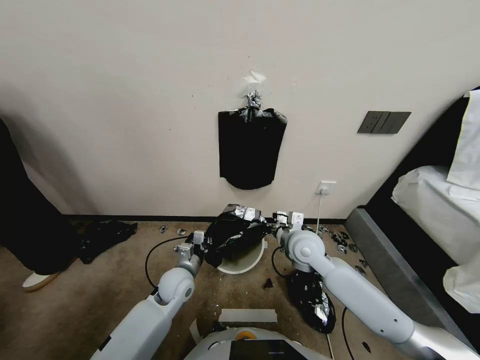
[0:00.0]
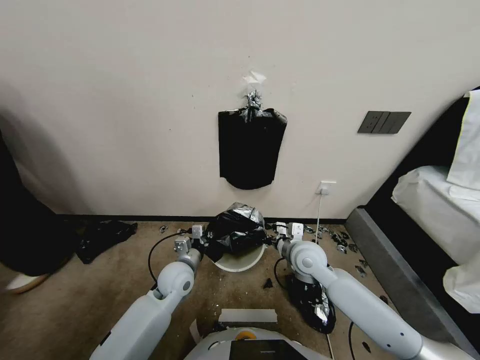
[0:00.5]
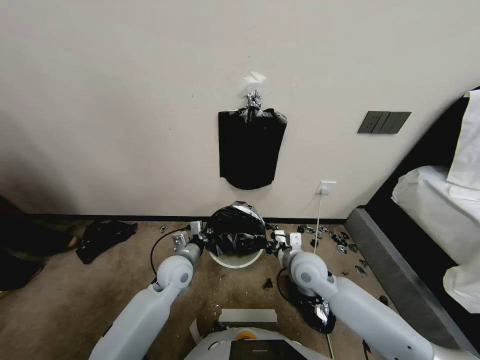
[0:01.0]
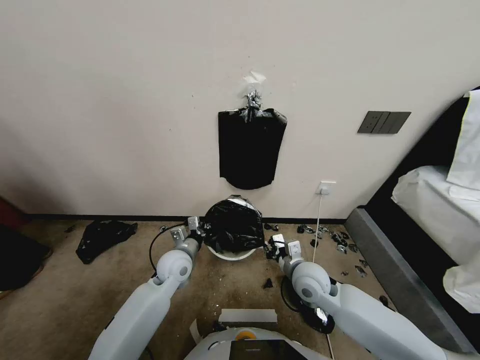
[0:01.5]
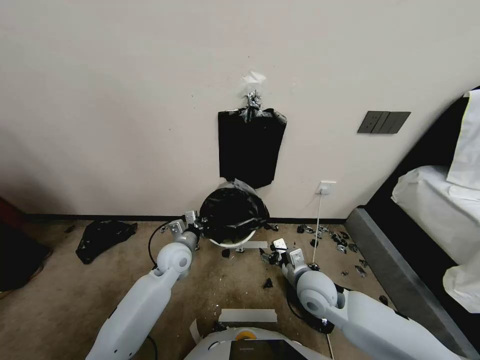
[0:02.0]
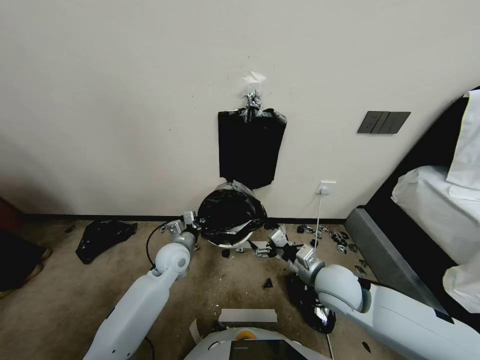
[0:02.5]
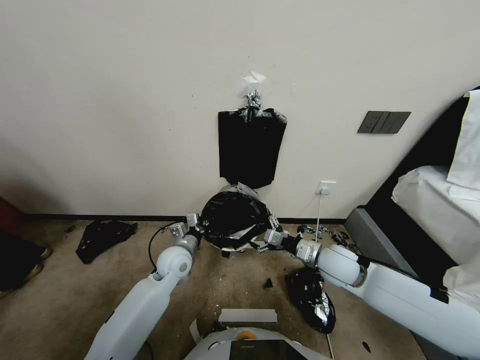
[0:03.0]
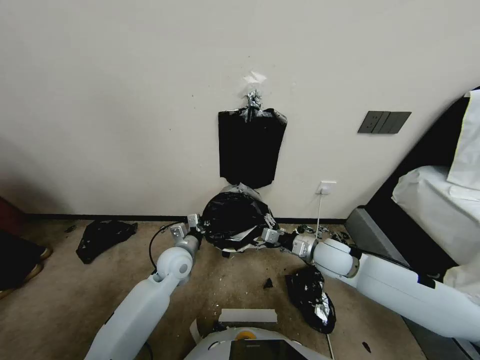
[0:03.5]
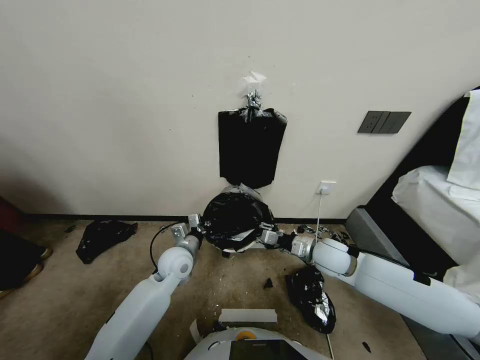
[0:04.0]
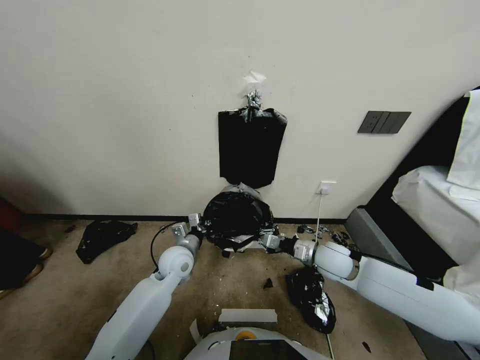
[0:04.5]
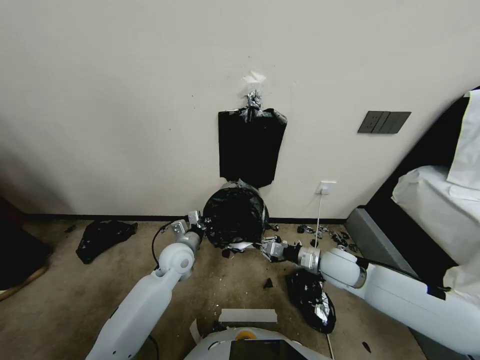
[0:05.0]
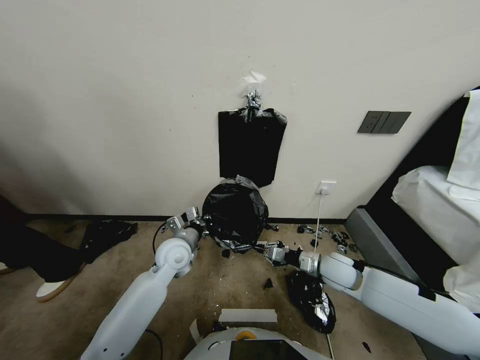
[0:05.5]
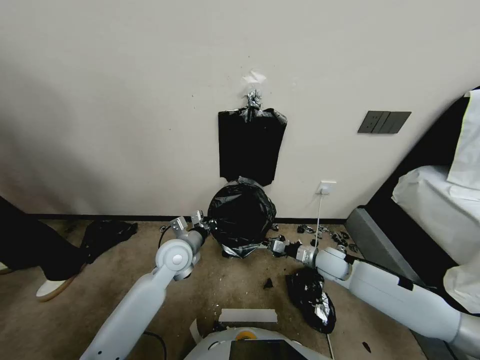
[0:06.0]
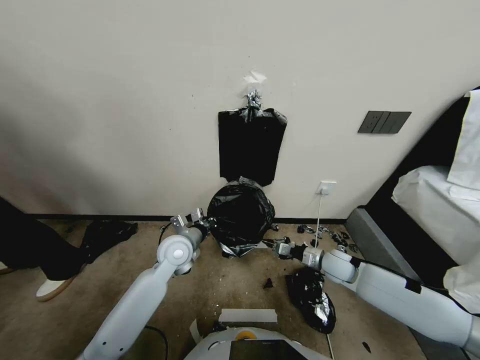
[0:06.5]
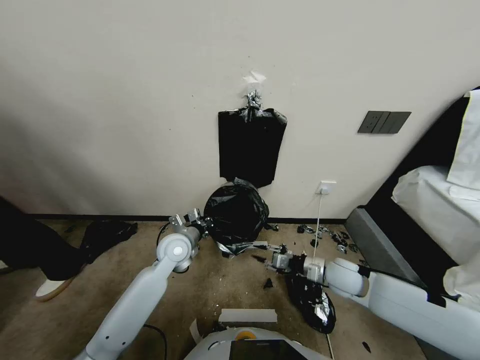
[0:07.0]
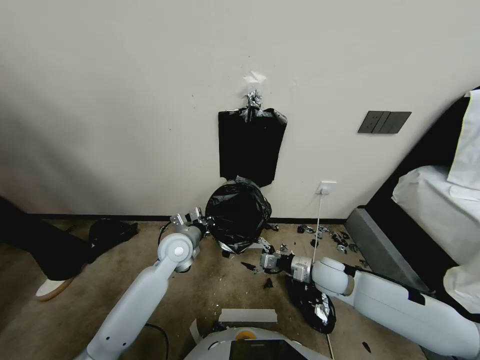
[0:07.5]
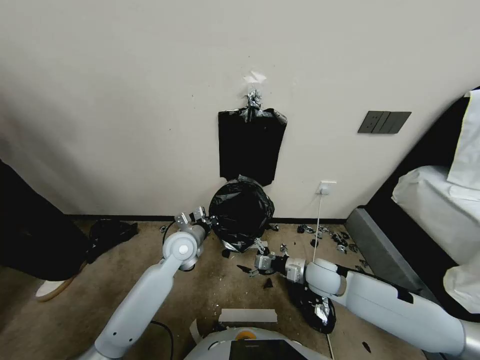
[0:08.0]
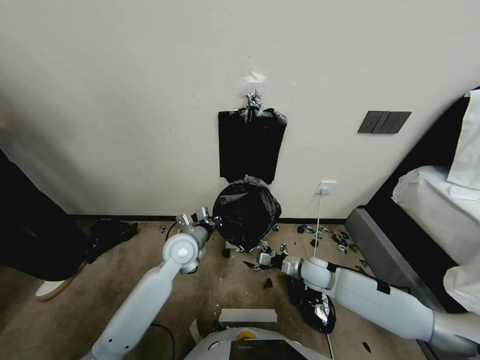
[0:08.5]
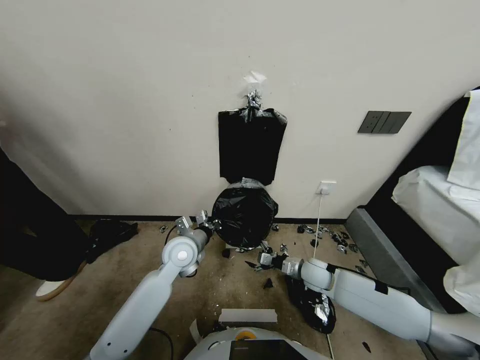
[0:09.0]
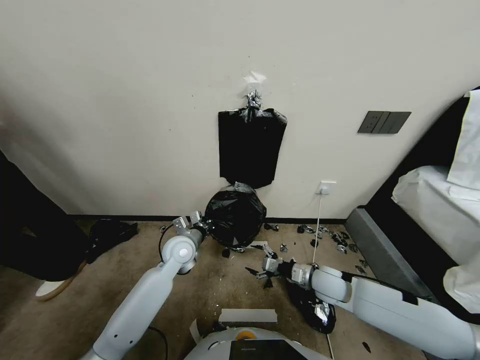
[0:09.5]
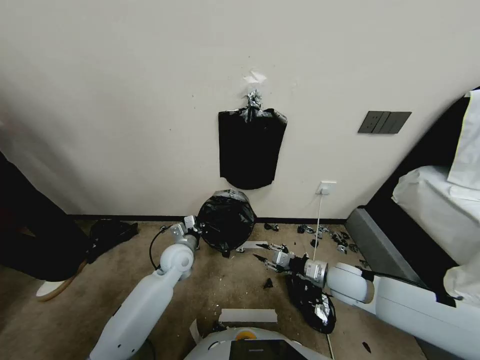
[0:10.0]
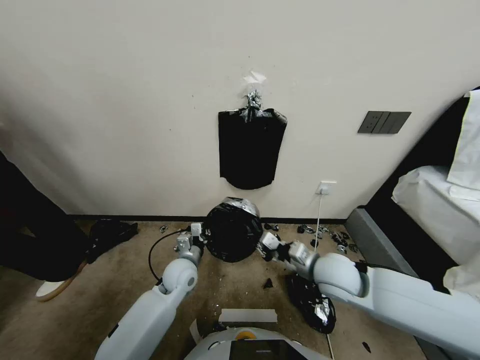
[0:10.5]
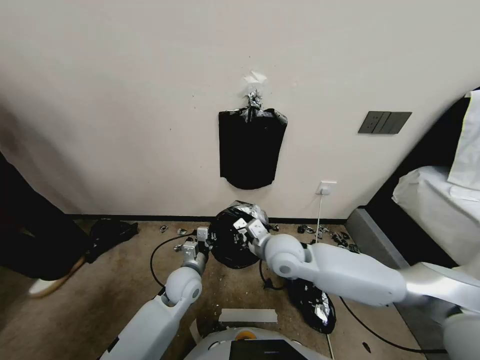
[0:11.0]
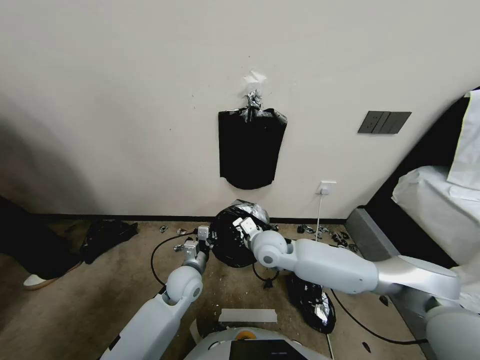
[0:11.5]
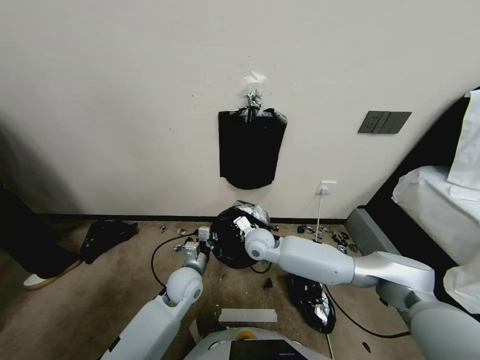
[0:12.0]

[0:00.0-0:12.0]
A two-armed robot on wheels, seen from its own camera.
Task of the whole recording: Place a trash bag onto the trash bin.
0:00.0 to 0:02.0: The left gripper travels forward by some 5 cm; the right gripper is displaced backward by approximately 10 cm, and opens its fingers.
0:02.0 to 0:04.0: The right gripper travels forward and to the right by about 10 cm, and closes its fingers.
0:04.0 to 0:06.0: The right gripper moves downward, about 10 cm.
0:06.0 to 0:08.0: The right gripper shifts about 5 cm to the left, and opens up.
0:08.0 to 0:10.0: The right gripper travels upward by roughly 5 cm, and closes, while the left gripper goes some 5 cm downward.
0:10.0 to 0:12.0: The left gripper is displaced backward by some 5 cm. The right gripper moves to the left and forward, roughly 25 cm.

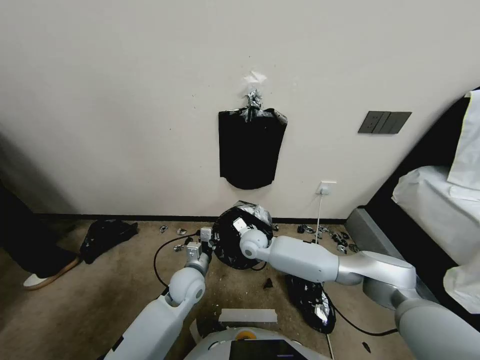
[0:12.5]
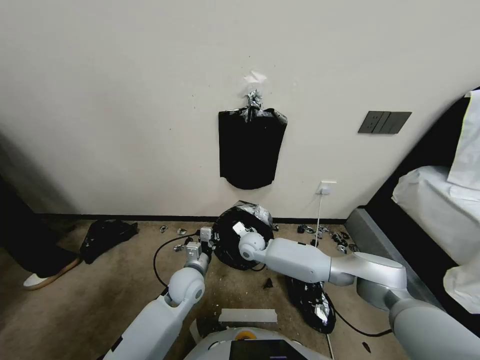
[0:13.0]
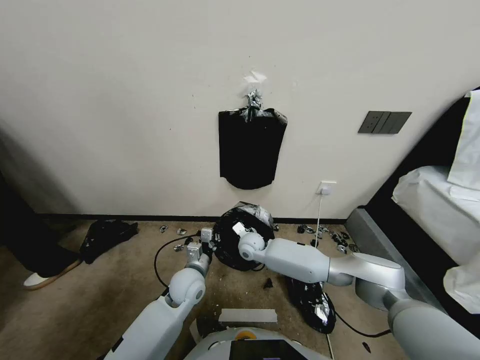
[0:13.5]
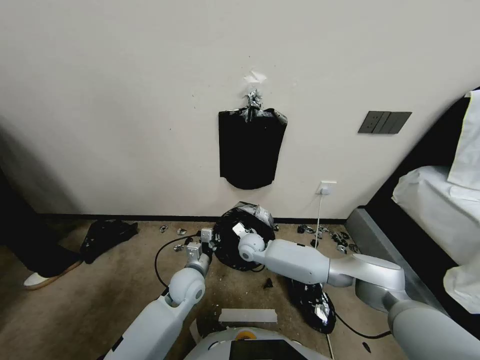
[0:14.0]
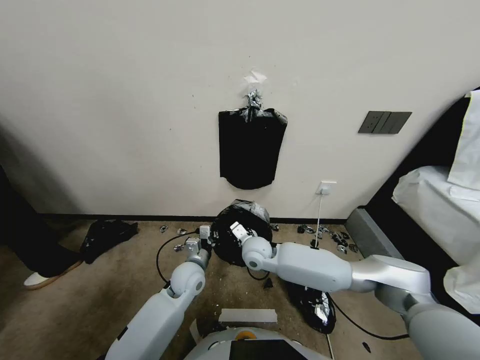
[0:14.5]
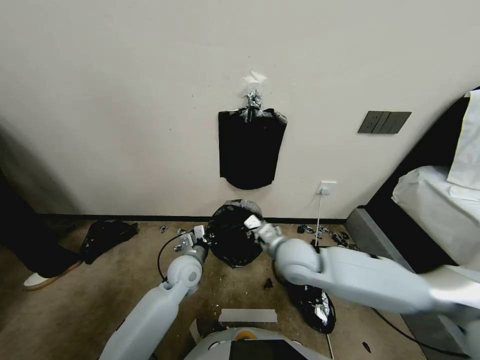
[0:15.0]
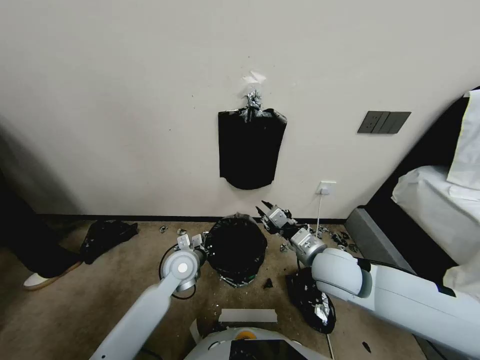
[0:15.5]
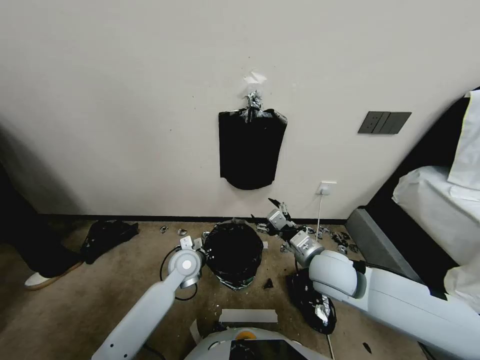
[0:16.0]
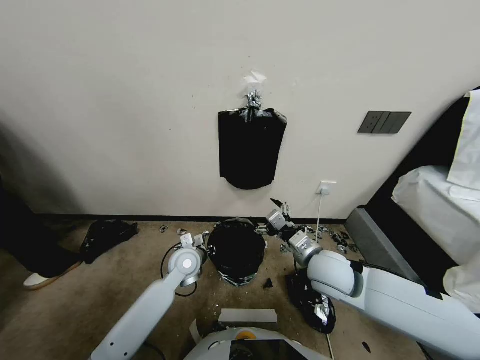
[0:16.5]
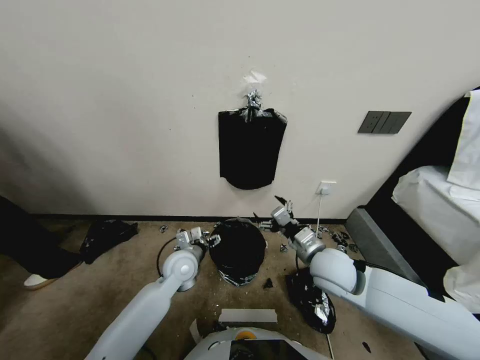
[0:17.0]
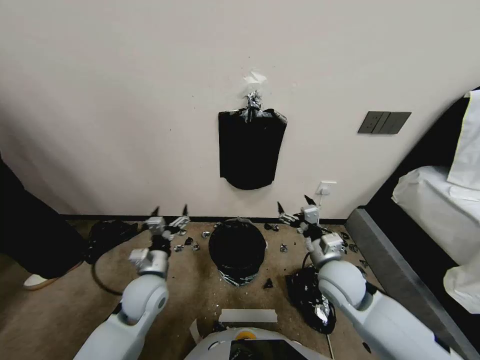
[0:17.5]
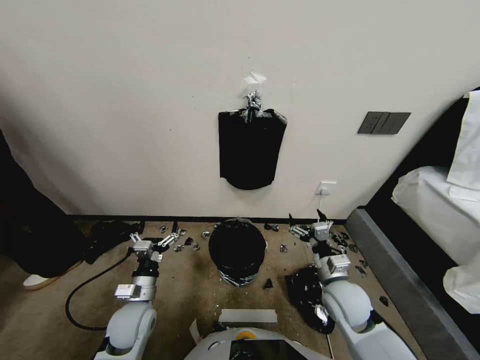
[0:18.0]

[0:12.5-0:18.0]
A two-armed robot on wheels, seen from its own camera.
Task of the whole recording: Place a trash bag onto the trash bin.
0:12.5 to 0:14.5: The right gripper is displaced backward by about 5 cm.
0:14.5 to 0:16.0: The right gripper shifts approximately 20 cm to the right, backward and upward, and opens its fingers.
0:16.0 to 0:18.0: The right gripper is displaced downward by some 10 cm; the left gripper travels backward and to the left by roughly 15 cm, and opens up.

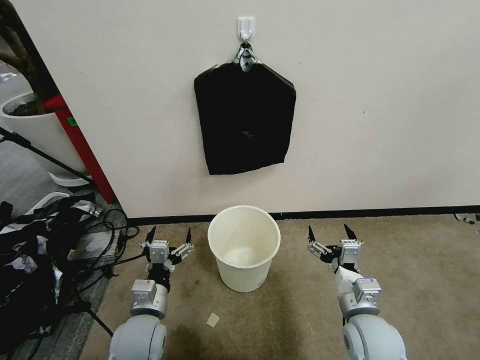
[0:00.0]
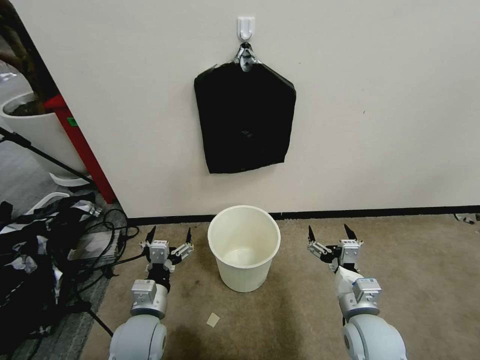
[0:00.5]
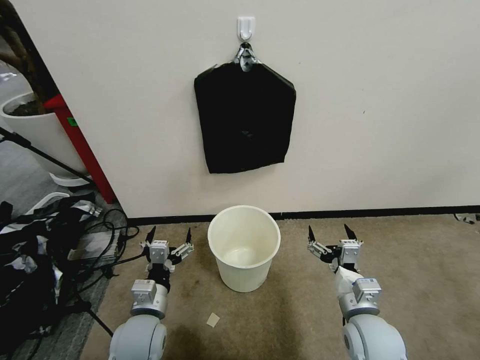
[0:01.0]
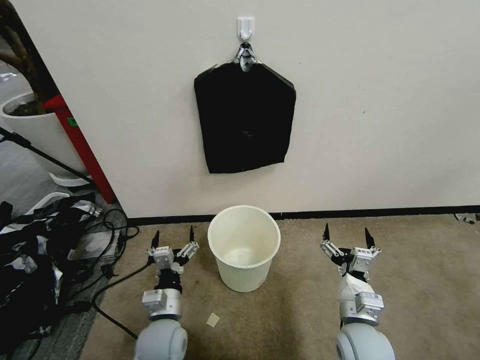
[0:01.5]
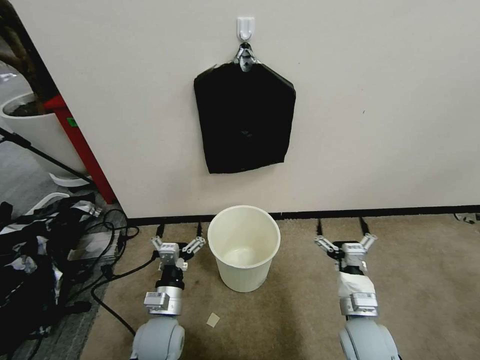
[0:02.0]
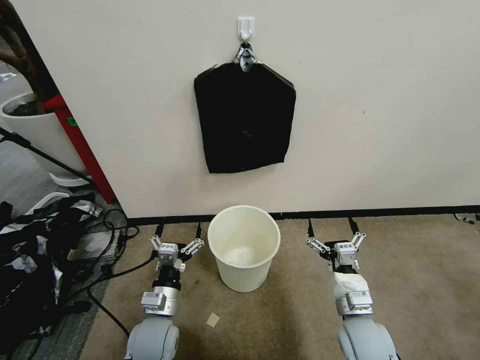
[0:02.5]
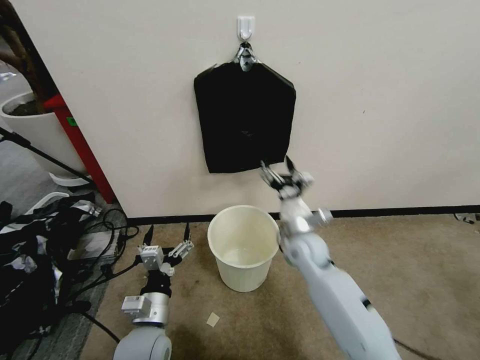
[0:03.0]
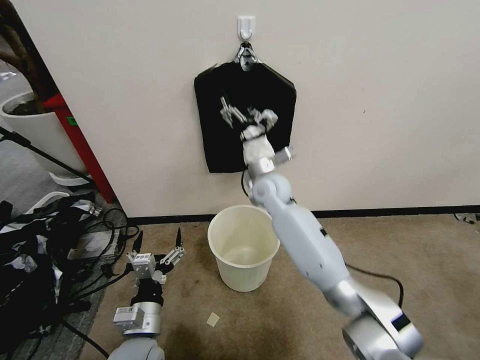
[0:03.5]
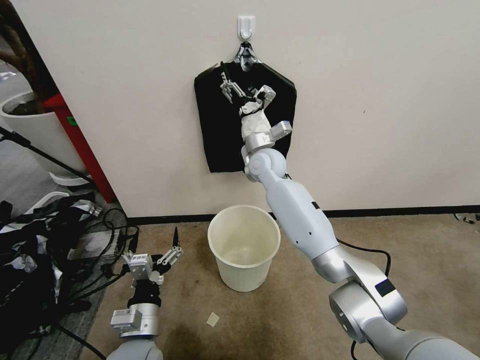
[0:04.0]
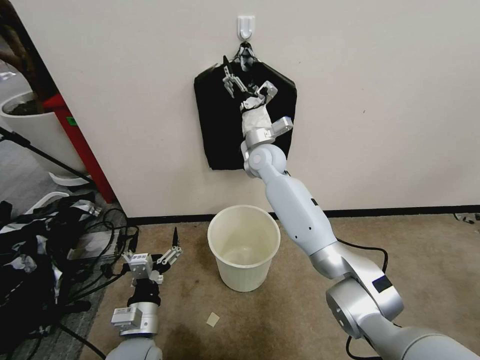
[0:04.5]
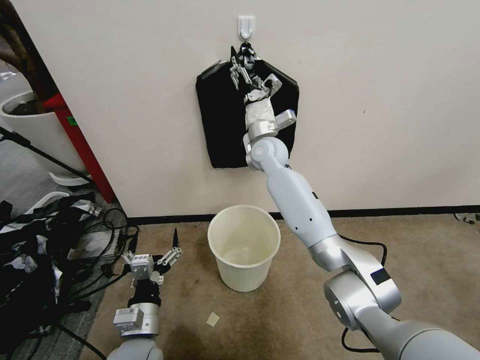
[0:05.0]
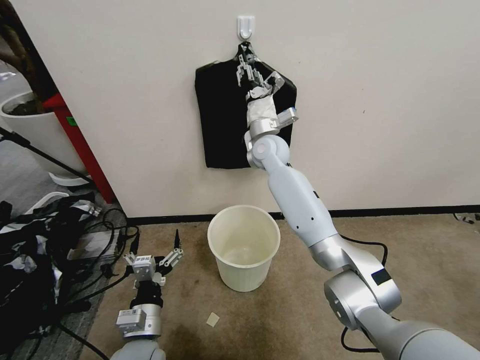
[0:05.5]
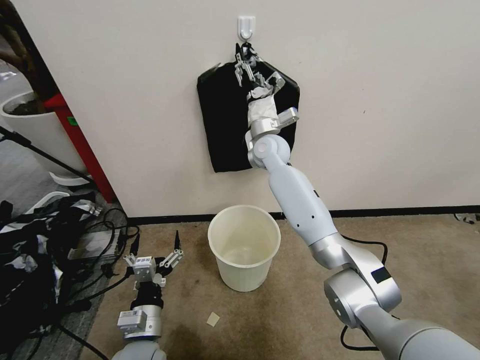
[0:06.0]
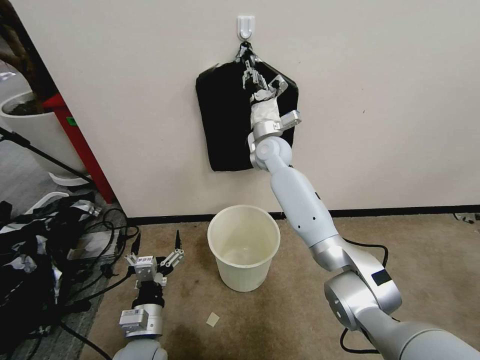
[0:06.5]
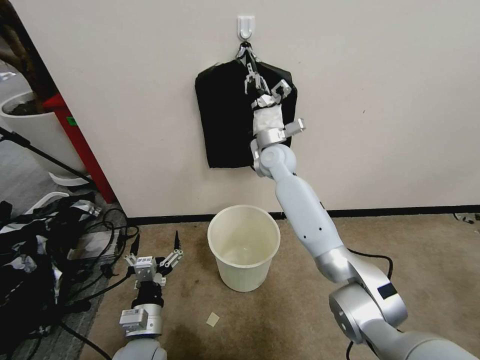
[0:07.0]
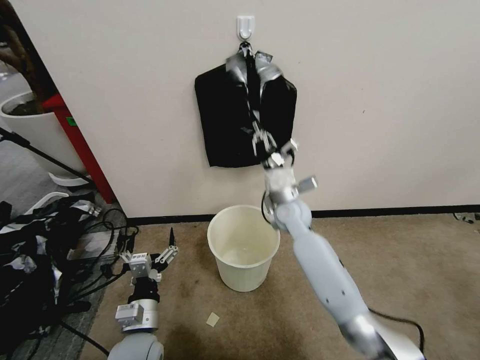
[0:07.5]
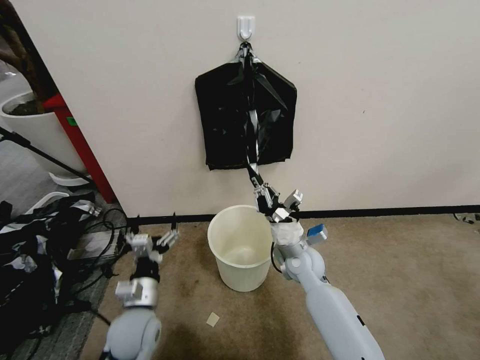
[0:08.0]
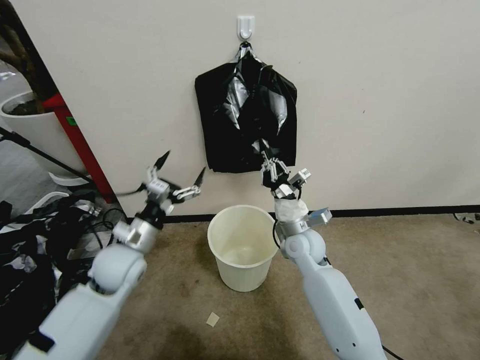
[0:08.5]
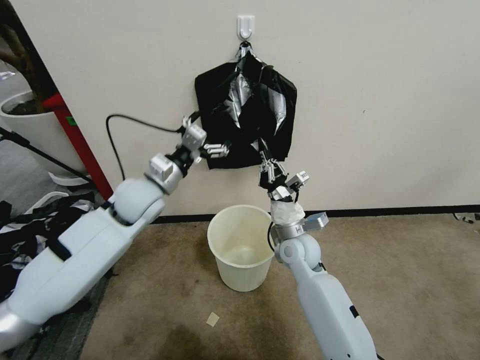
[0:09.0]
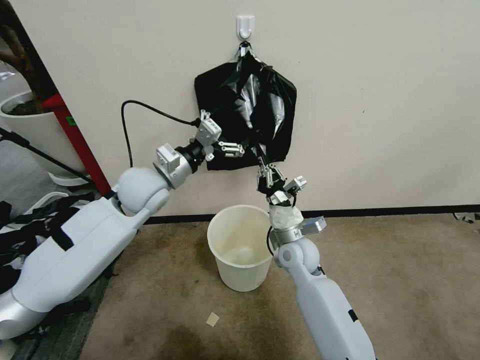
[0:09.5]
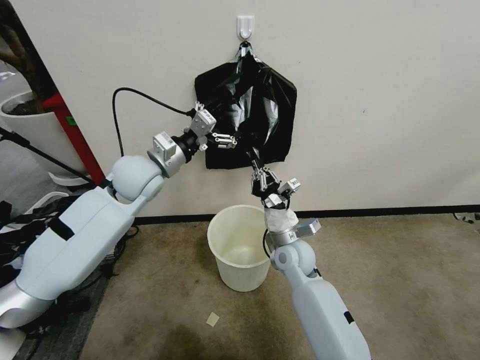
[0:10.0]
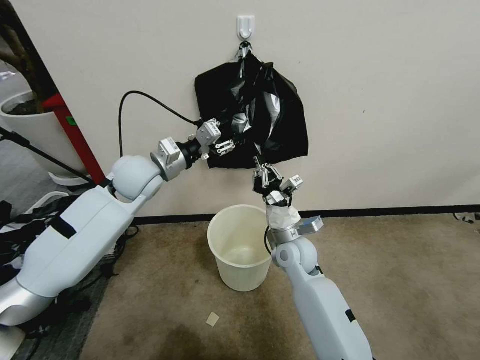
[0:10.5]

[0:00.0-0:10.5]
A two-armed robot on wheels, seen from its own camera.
Task of the whole recording: Place a trash bag onto the trash bin.
0:02.0 to 0:04.0: The left gripper shifts by roughly 5 cm, while the right gripper heads forward, upward and to the left, covering roughly 40 cm.
0:04.0 to 0:06.5: The right gripper closes its fingers.
0:06.5 to 0:08.5: The right gripper moves backward and downward, approximately 25 cm; the left gripper goes roughly 20 cm forward and upward.
0:08.5 to 0:10.5: The left gripper is displaced upward and forward by about 20 cm, and closes.
